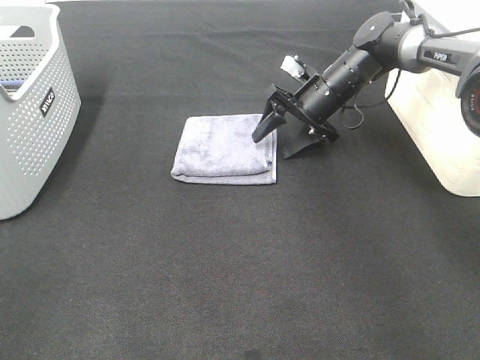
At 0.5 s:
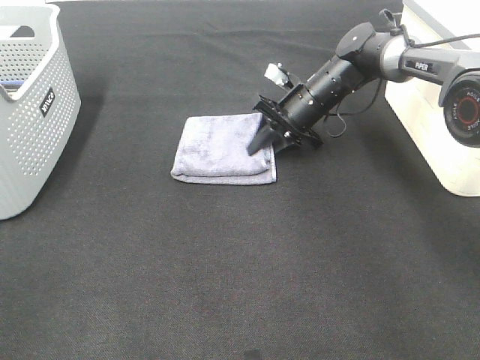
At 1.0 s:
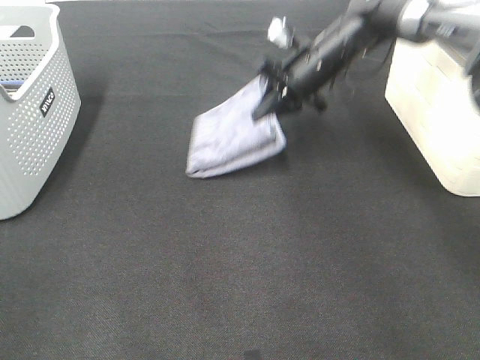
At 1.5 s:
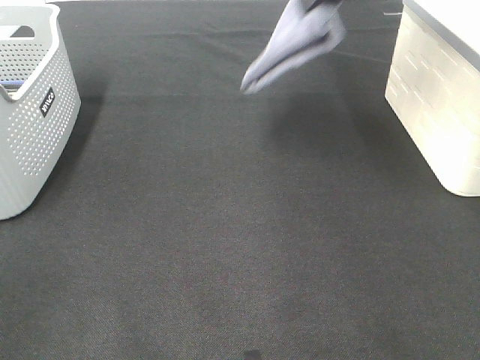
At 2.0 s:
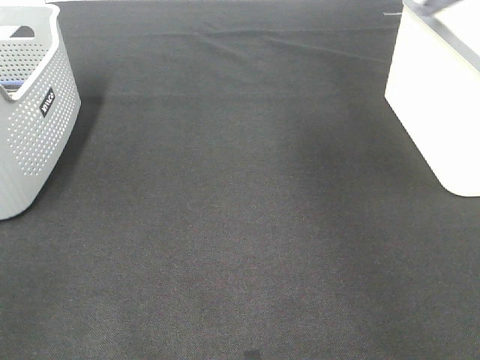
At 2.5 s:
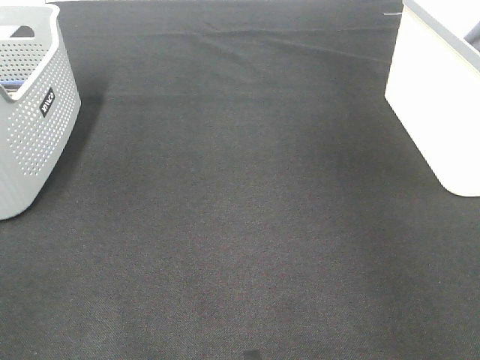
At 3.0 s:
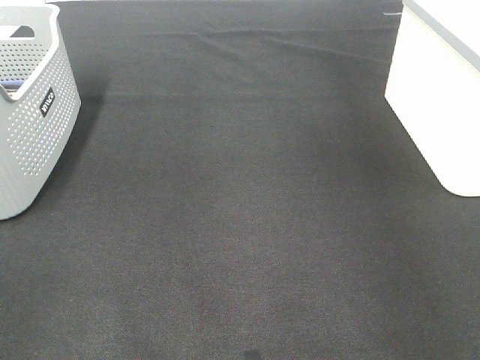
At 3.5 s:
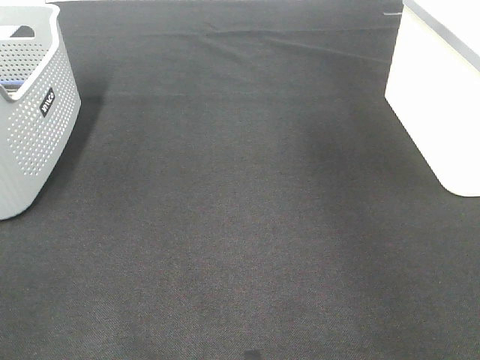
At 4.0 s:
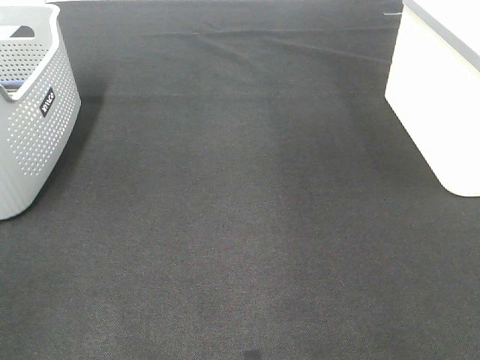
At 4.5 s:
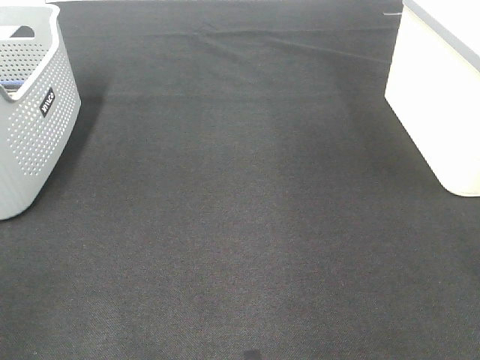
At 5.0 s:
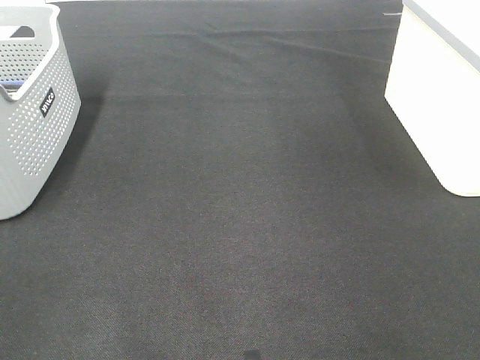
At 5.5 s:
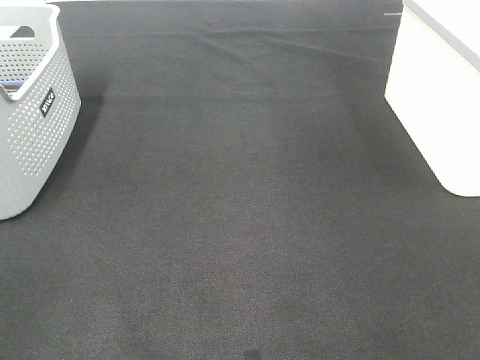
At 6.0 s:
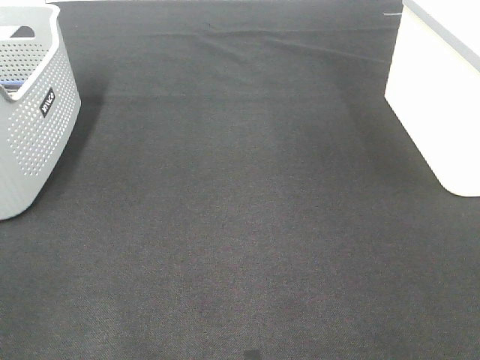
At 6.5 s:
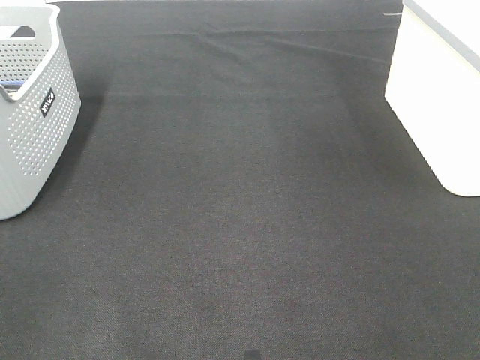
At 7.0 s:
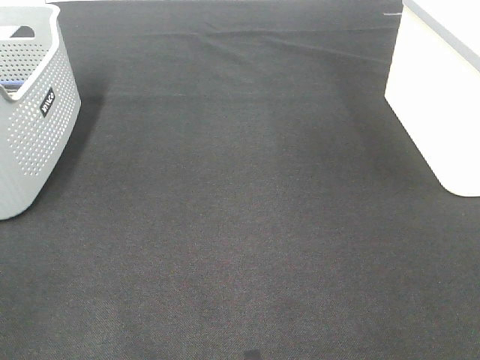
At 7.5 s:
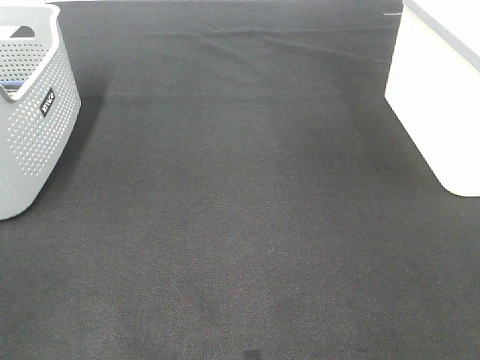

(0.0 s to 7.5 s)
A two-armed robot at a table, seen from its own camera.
Step, 1.0 s - 3.0 s: Right hand: place the grey towel in right basket.
0.0 s - 2.0 s: The right gripper goes about 40 cm upward and to the right, and closes its fingers.

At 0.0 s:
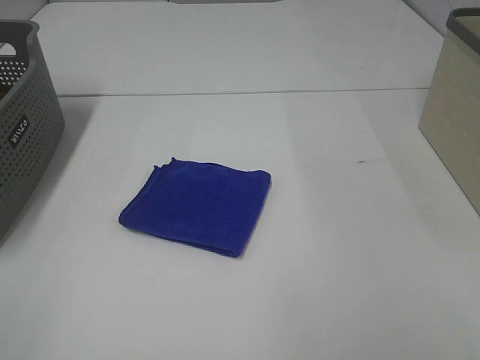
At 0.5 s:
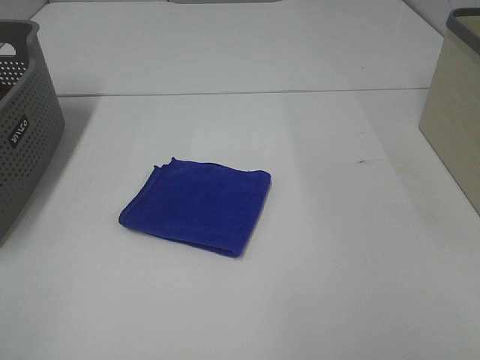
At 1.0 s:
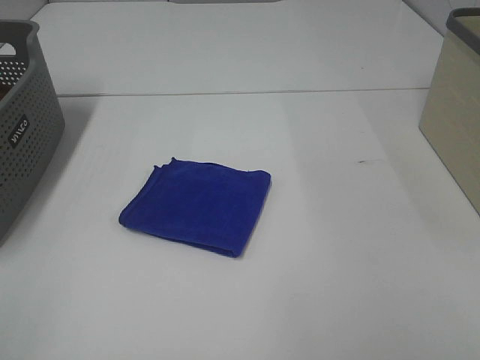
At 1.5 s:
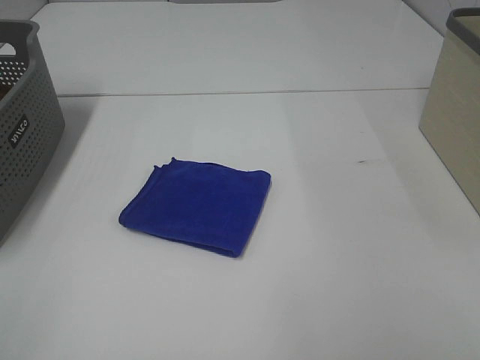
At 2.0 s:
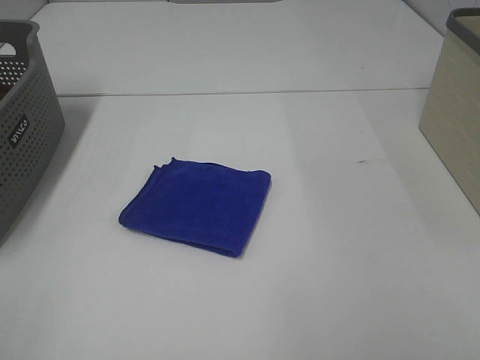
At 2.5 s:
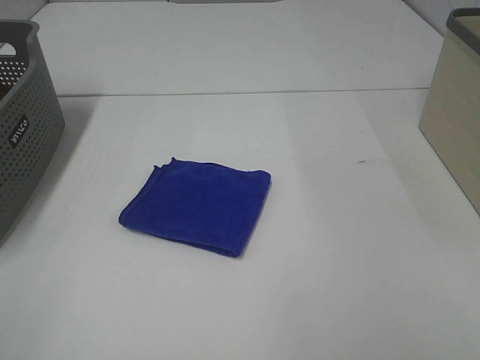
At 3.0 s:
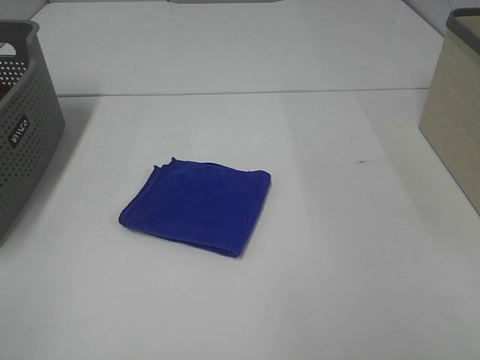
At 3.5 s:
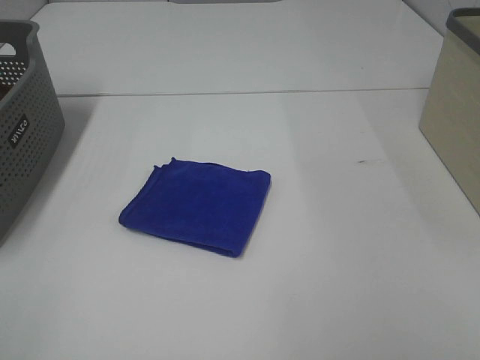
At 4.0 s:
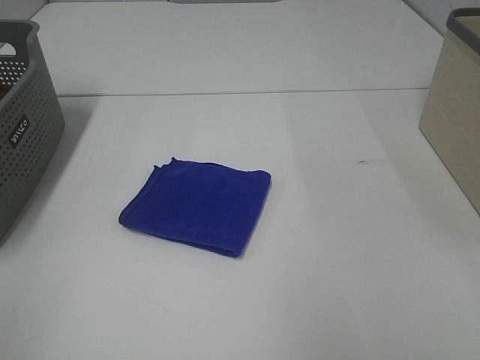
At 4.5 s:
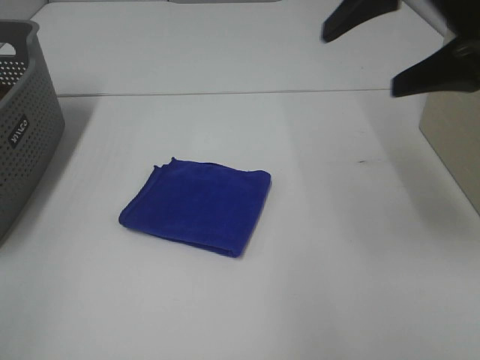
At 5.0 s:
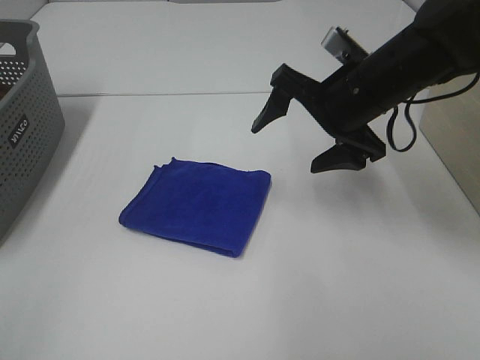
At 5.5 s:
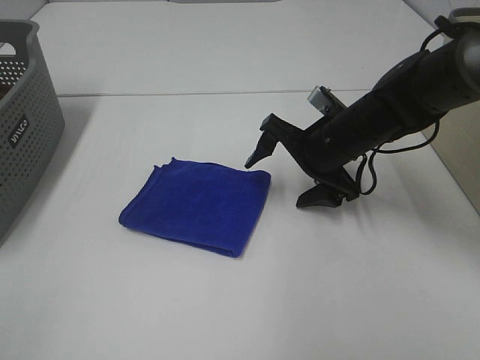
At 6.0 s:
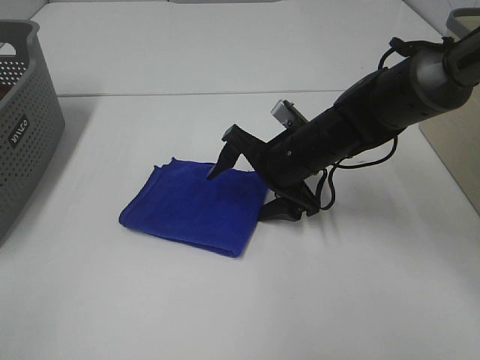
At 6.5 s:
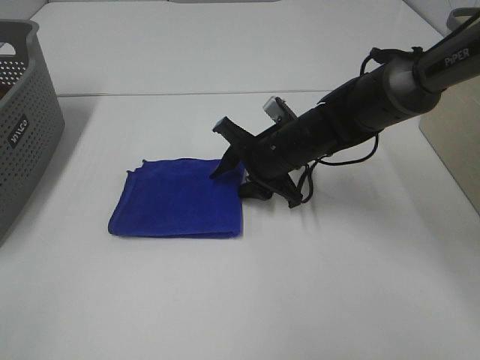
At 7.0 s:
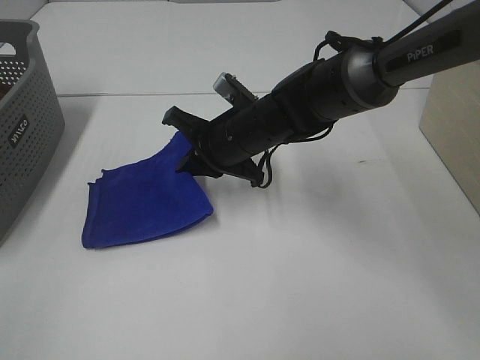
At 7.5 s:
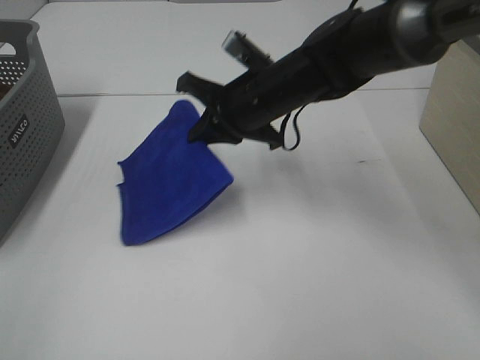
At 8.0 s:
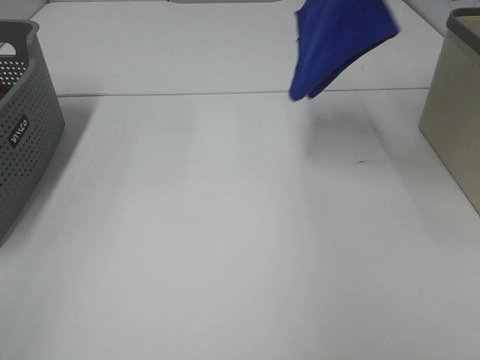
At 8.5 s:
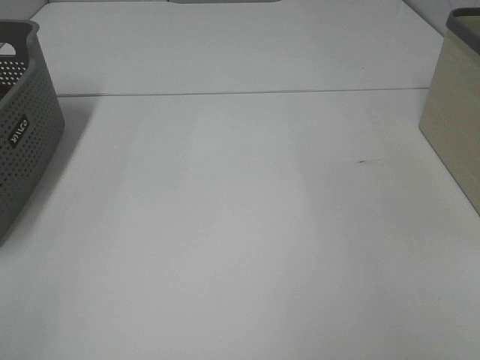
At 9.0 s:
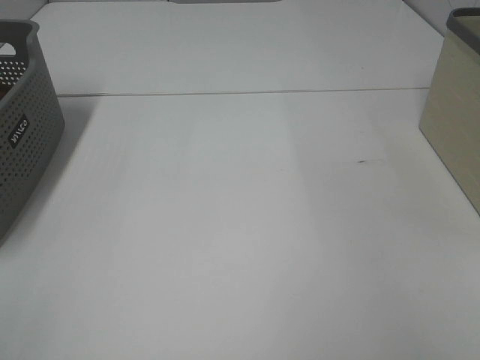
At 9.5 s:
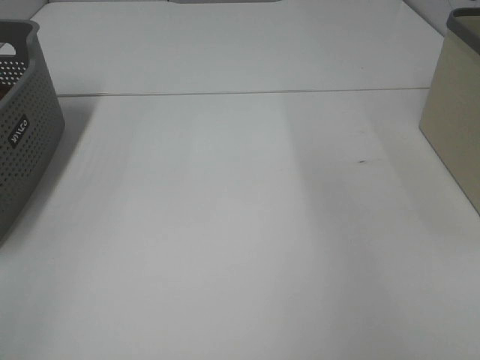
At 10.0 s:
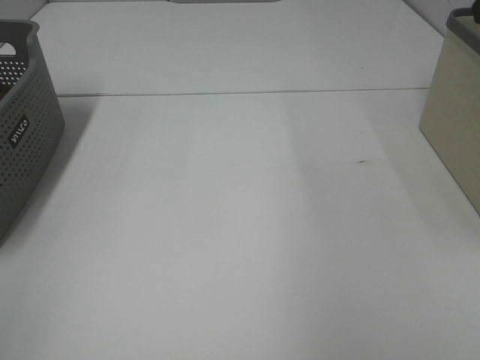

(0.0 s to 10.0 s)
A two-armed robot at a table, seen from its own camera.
Step, 0.0 s - 6.5 s: Right hand: grab the folded blue towel.
Step, 7.0 s - 9.0 s: Right hand: place the blue towel in right basket.
0.0 s - 2.0 s: Both grippers stay about where they are.
4.0 s - 6.0 s: The right gripper moves downward, forward and to the left, about 40 cm.
6.0 s - 8.0 s: The right gripper moves upward and to the right, approximately 30 cm, and closes.
8.0 s - 10.0 s: The right gripper travels backward by some 10 cm, goes to the right and returns, some 20 cm each way, and opens up.

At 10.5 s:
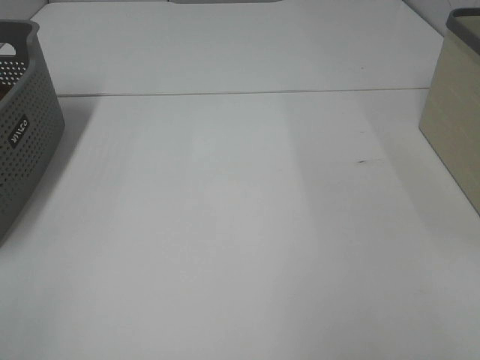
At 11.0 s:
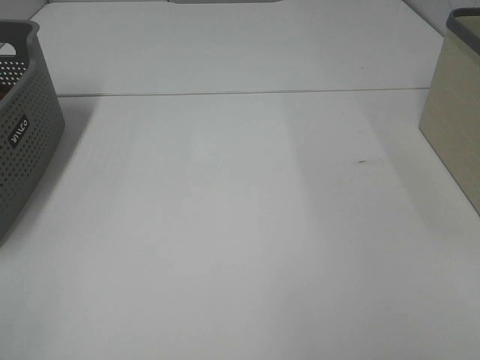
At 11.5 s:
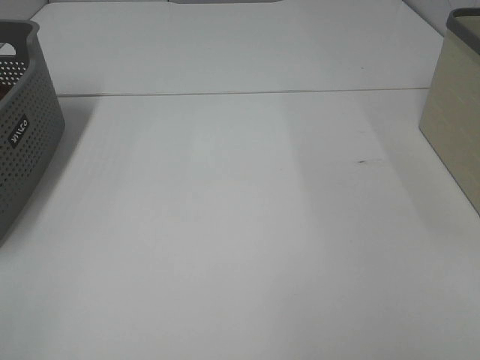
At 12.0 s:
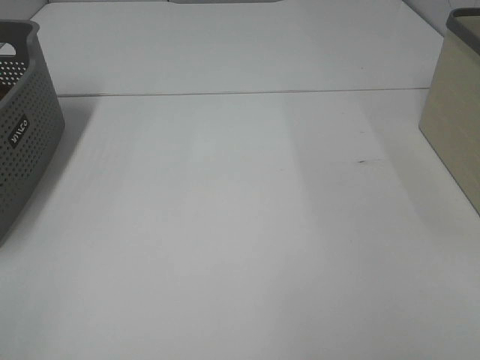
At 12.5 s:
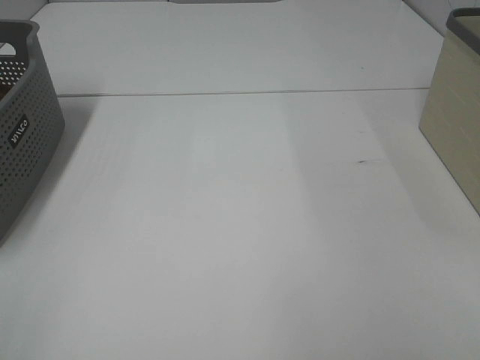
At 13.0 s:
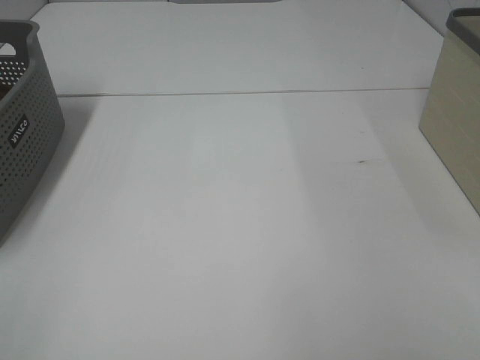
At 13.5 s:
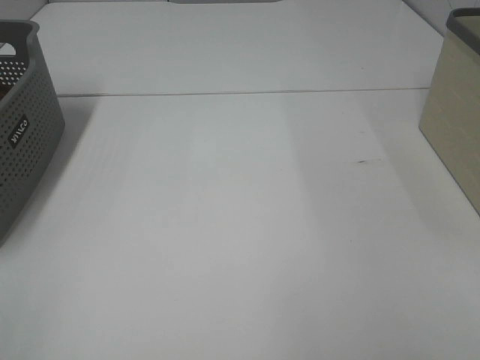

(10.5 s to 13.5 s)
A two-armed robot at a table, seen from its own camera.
12.0 s - 13.5 s: Both grippers stay about where they are.

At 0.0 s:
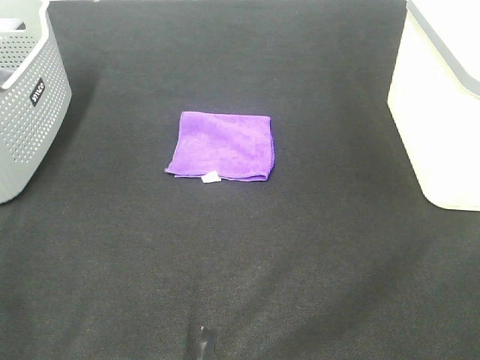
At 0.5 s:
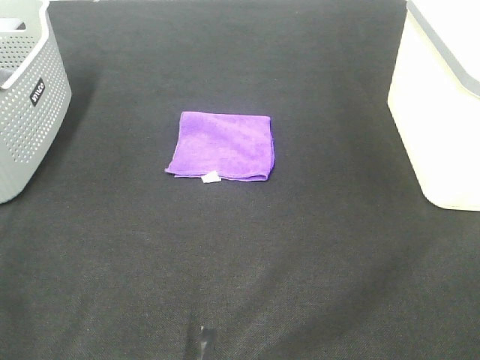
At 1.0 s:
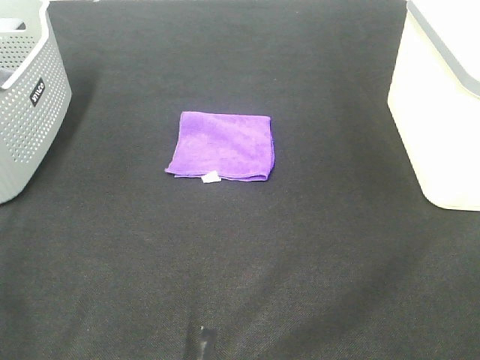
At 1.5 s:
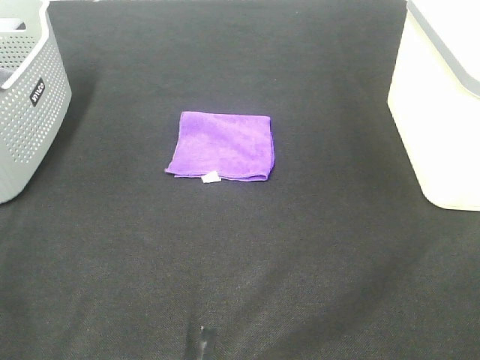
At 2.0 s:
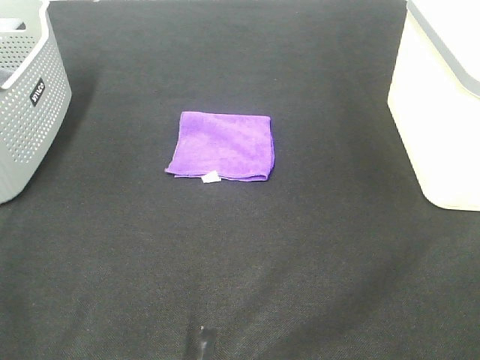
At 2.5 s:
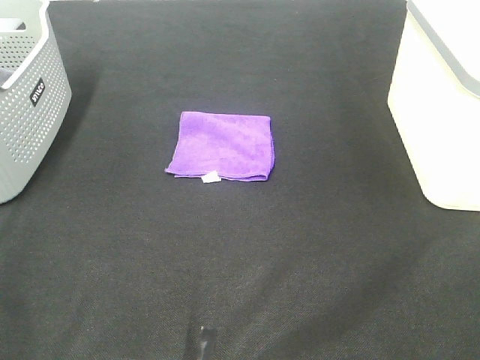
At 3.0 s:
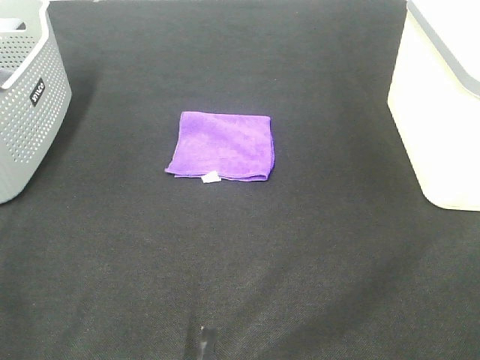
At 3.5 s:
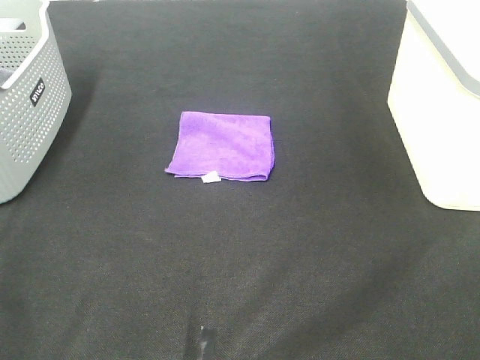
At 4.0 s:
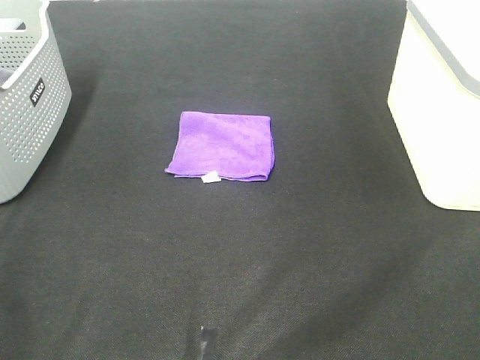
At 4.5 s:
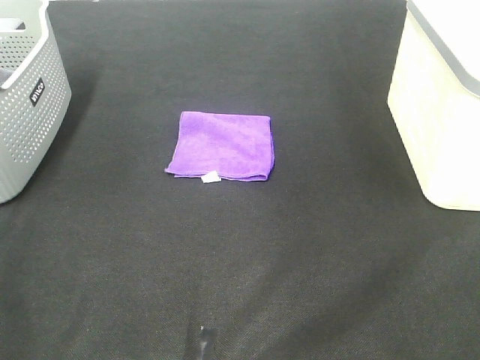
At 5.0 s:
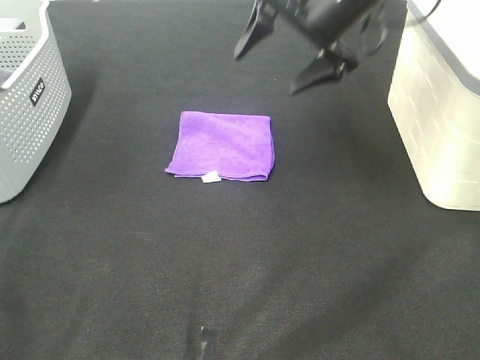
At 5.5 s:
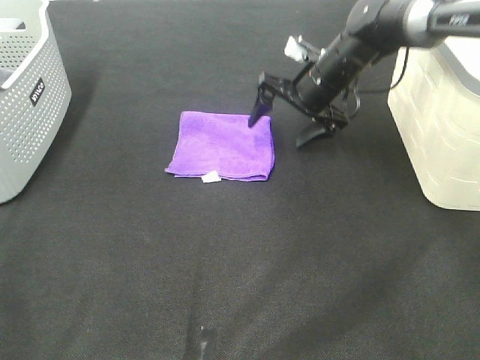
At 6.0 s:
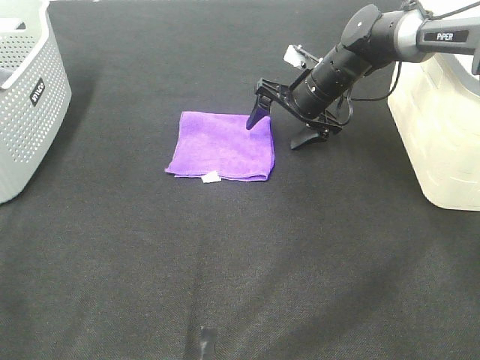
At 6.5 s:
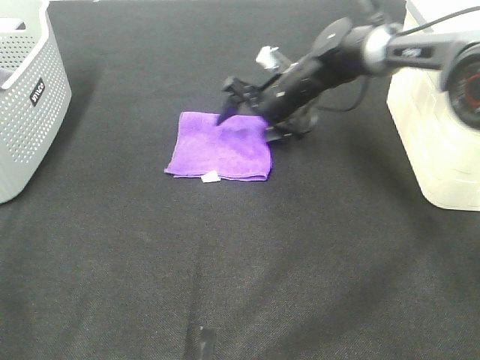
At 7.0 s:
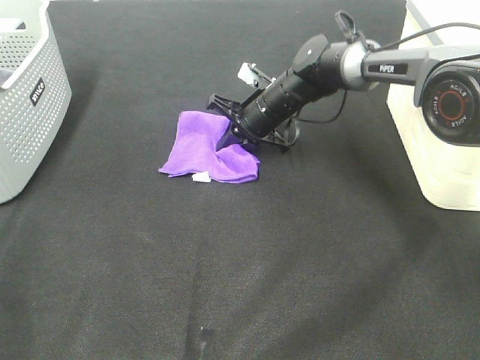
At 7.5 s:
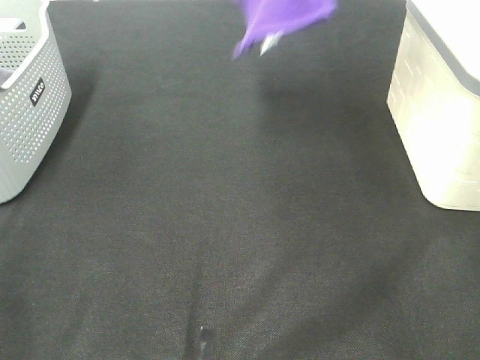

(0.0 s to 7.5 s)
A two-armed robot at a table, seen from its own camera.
Step, 0.0 s - 6.5 s: Right hand: grab the folded purple towel.
0.0 s - 2.0 s: Both grippers stay put.
4.0 s - 5.5 s: The right gripper shifts about 50 cm forward, downward and to the left.
5.5 s - 7.5 s: The right gripper goes approximately 25 cm upward, and closes up.
